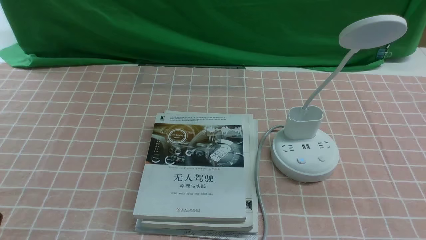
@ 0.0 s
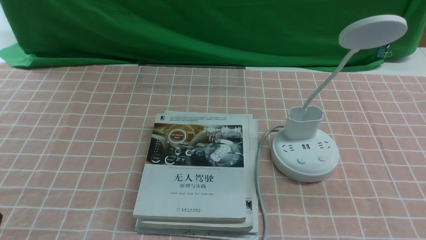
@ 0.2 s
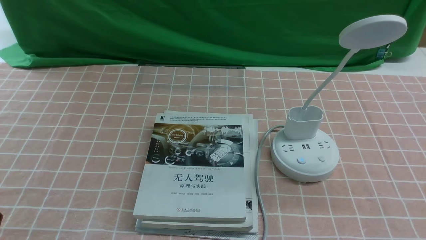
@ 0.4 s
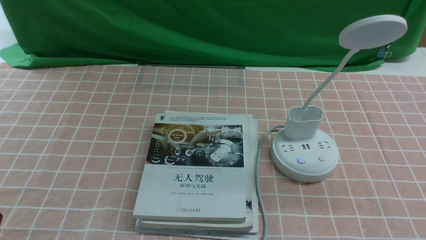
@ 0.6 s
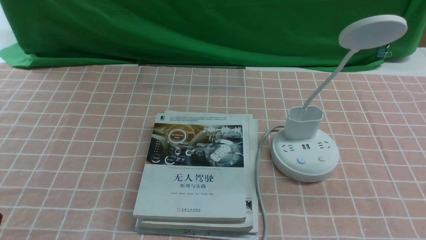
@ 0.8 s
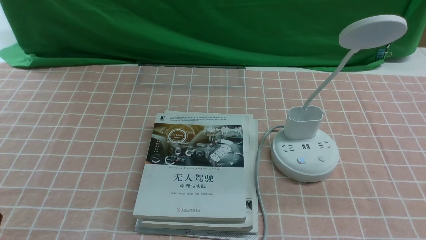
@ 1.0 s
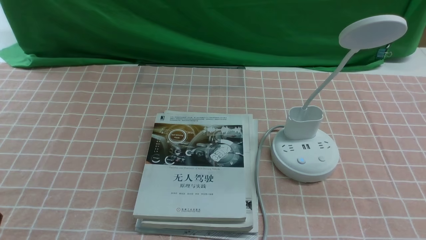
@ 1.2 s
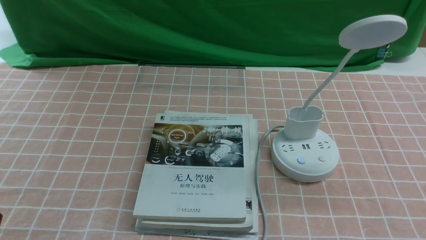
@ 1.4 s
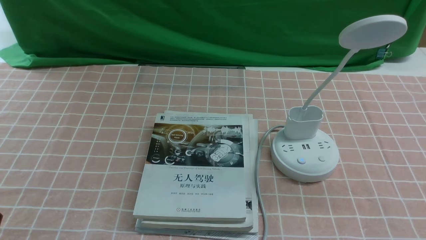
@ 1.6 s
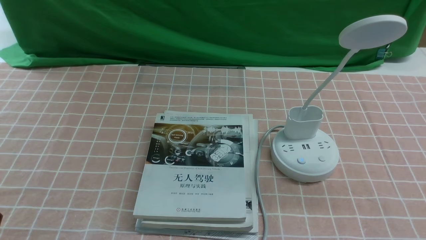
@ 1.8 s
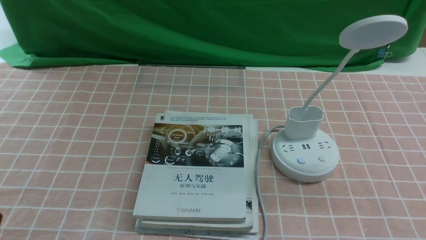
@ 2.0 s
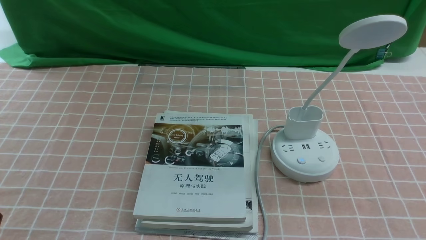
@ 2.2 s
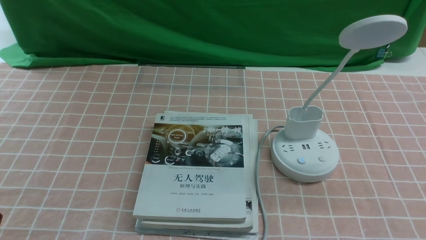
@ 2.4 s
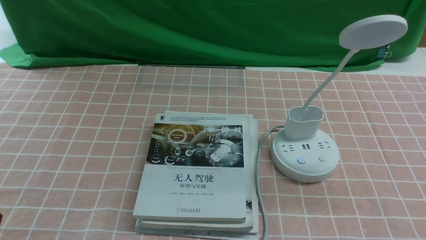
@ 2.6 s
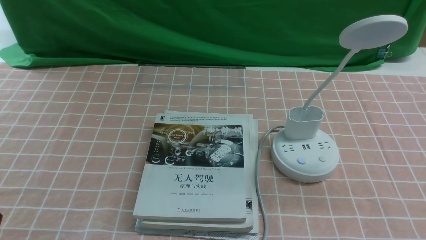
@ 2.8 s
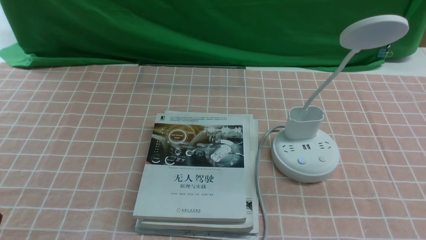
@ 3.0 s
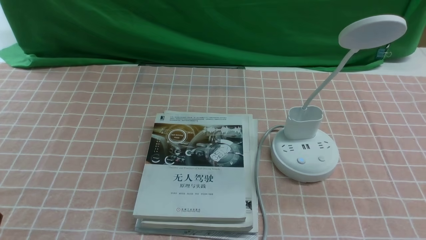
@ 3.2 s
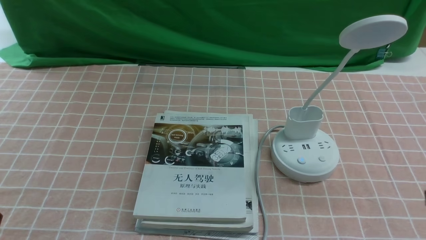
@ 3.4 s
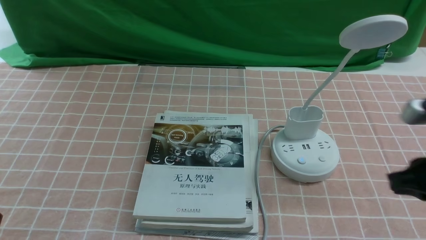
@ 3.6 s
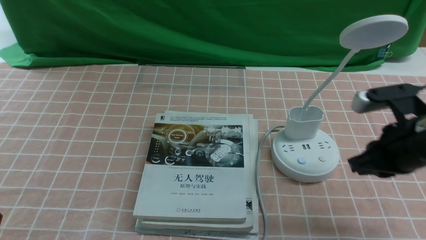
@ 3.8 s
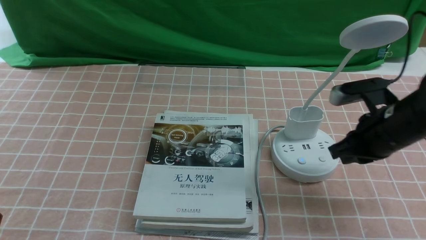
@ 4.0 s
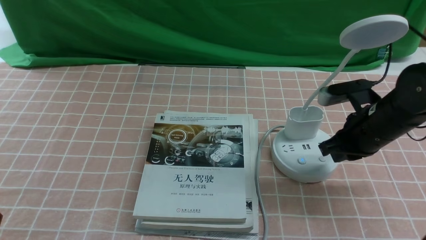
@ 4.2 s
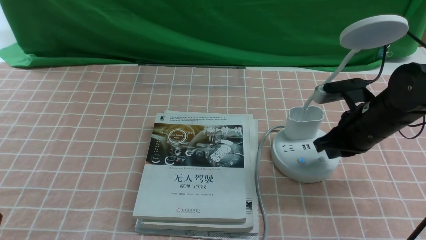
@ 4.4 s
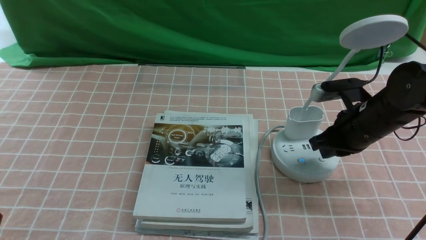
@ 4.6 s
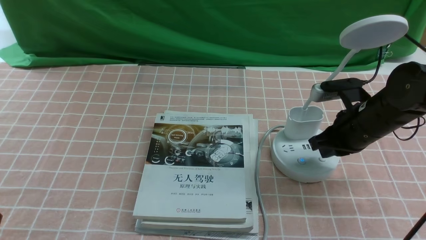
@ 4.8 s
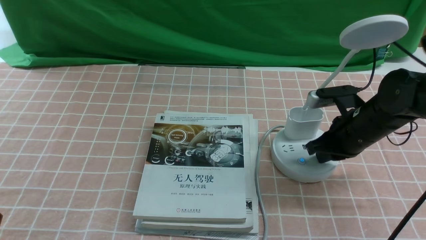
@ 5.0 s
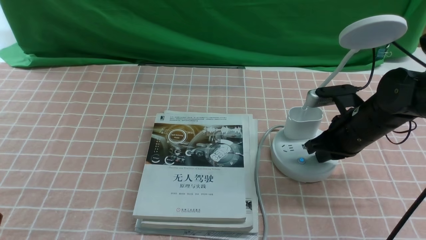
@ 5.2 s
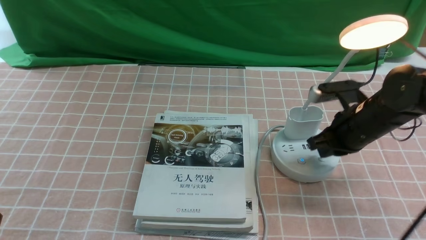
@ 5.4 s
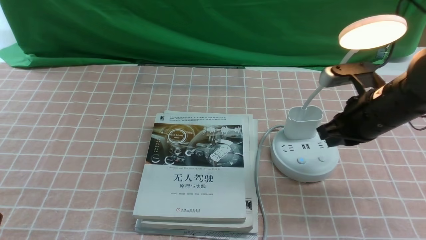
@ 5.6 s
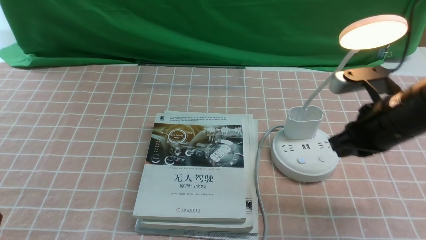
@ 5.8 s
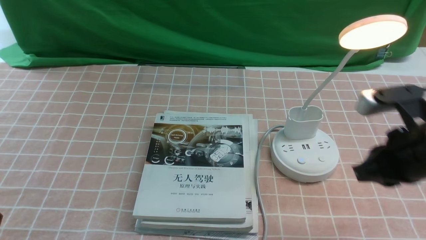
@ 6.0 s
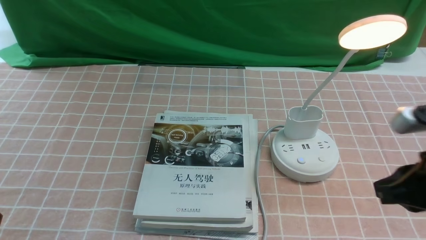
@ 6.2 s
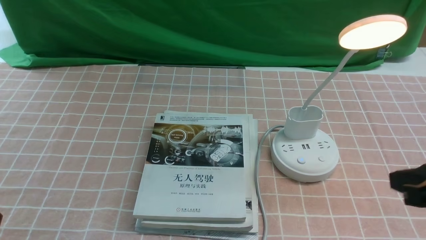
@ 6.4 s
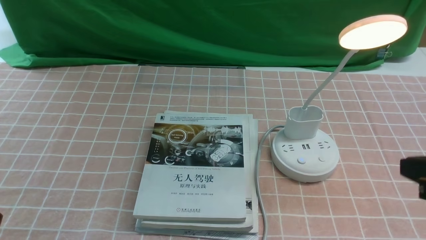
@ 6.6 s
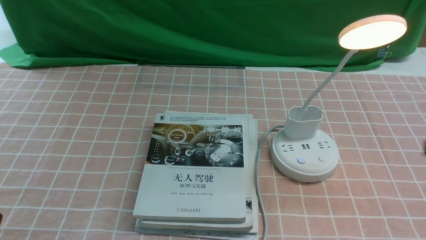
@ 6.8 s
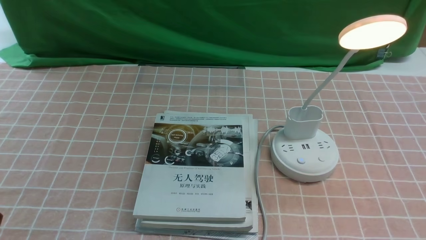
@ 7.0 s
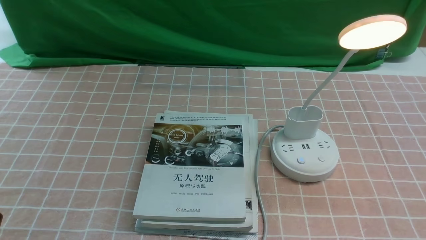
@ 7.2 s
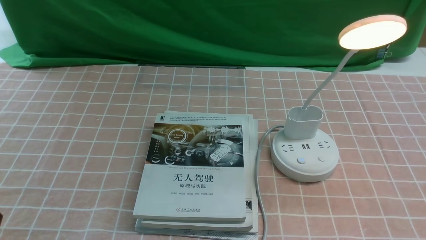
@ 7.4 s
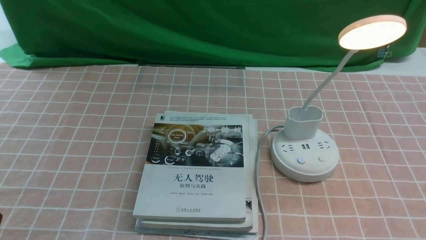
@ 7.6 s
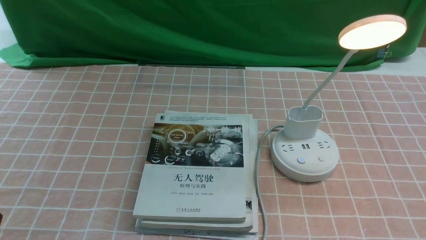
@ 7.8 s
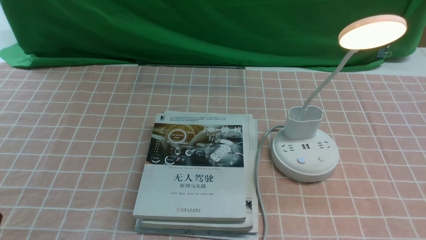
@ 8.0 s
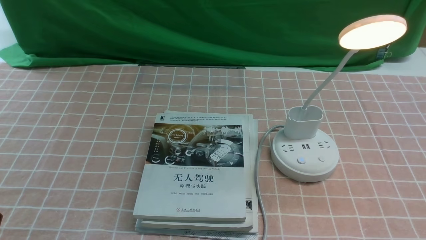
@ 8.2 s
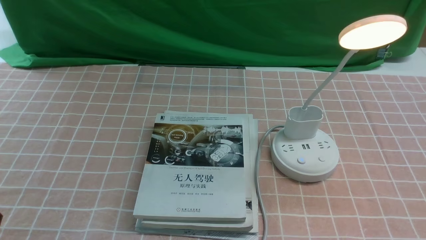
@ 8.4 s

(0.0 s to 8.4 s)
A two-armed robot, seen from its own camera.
Step, 0.0 s - 5.4 s: use the right arm to press the button switch on the lamp holder.
0.0 s - 1.4 s: Both grippers stay about where they are.
2.8 s - 4.2 s: The right gripper shifts about 25 cm forward, and closes up.
4.2 s - 5.6 s: The grippers stay close to where they were, moving slightly.
5.6 s - 7.0 s: The right gripper travels backward by roughly 25 cm.
